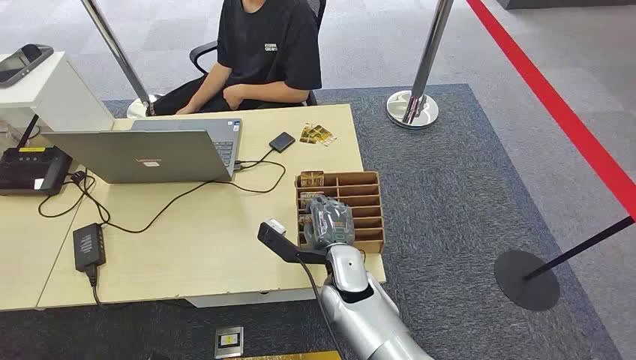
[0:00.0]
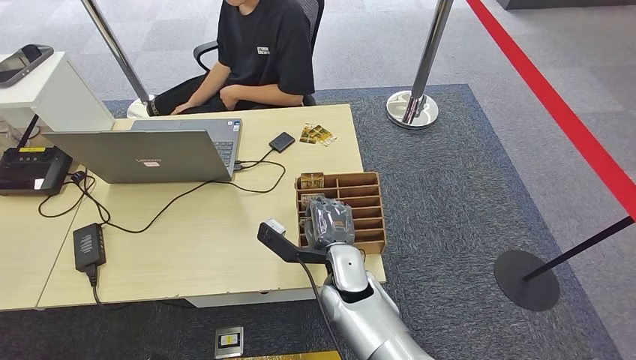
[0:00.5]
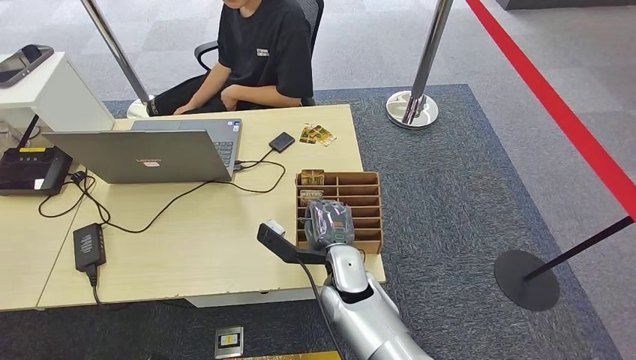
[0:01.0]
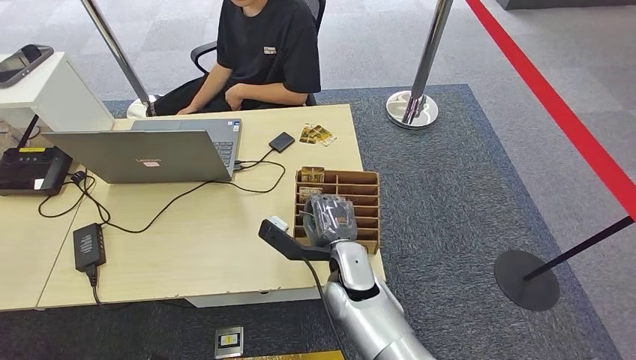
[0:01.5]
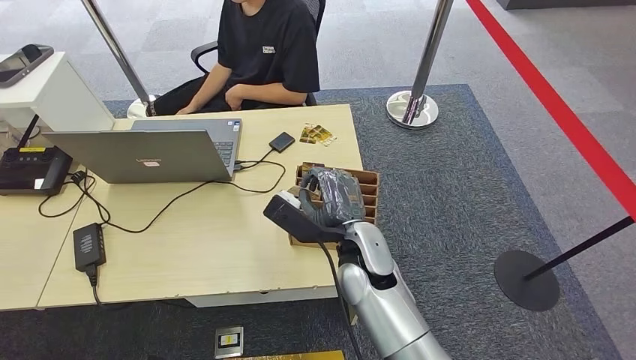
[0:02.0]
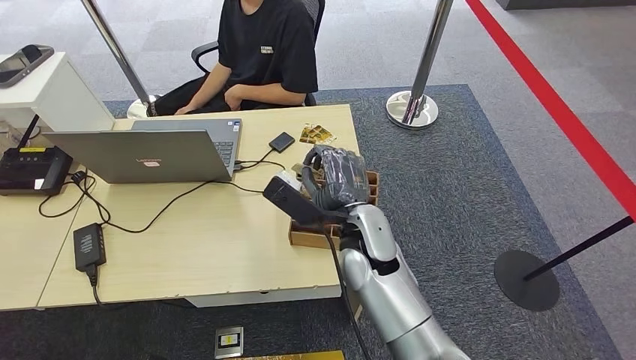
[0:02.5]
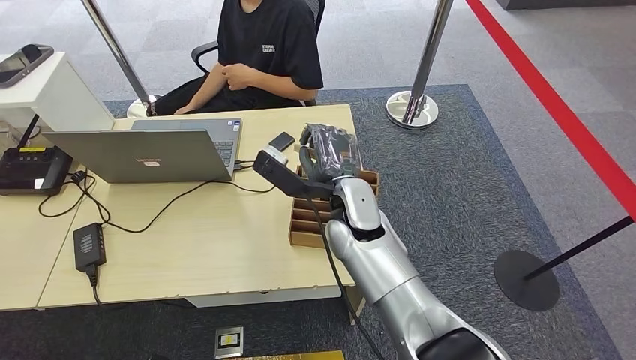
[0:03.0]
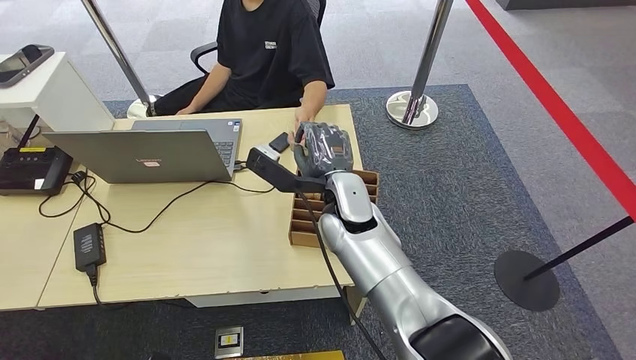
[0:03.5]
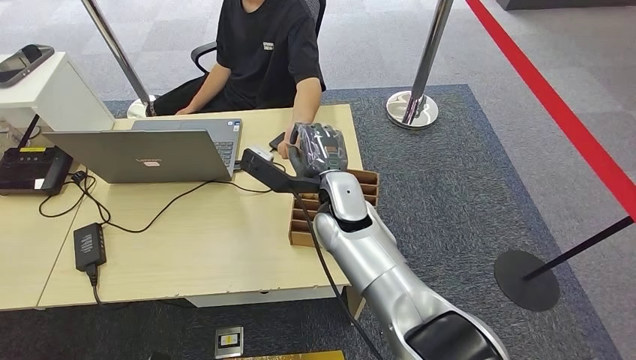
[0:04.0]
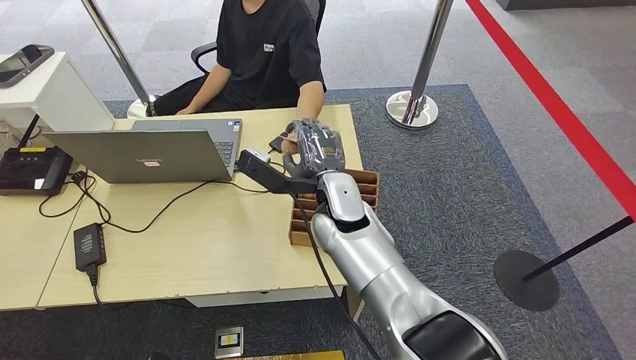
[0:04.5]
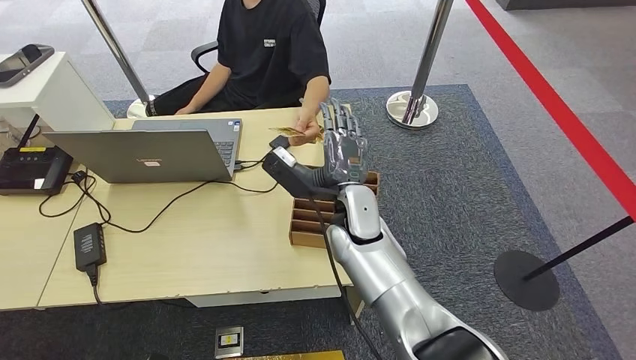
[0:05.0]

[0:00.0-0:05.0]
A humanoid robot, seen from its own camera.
Step, 0:00.0 to 0:02.0: Pick up the key card from the card box.
Step, 0:02.5 to 0:05.0: Hand the key card to the target.
